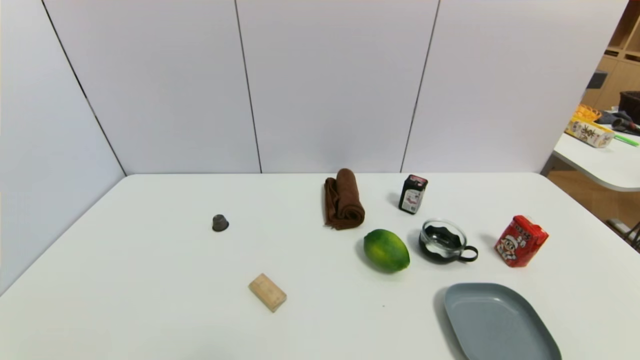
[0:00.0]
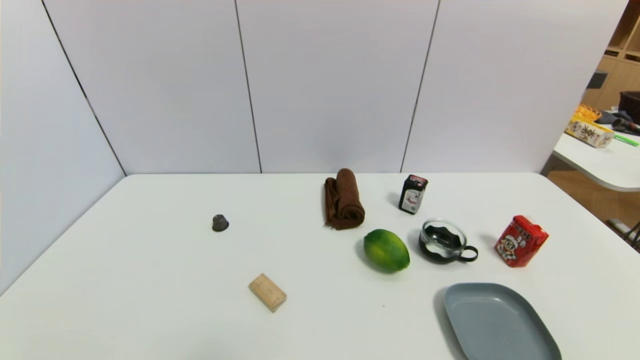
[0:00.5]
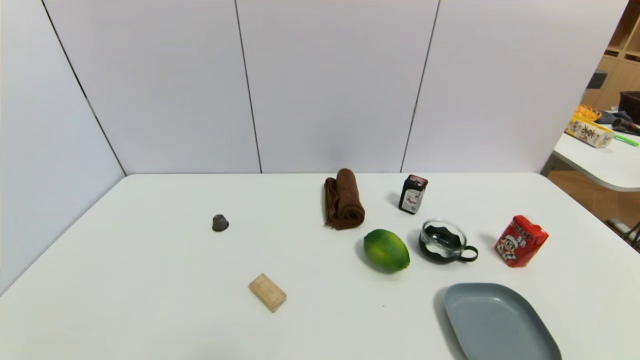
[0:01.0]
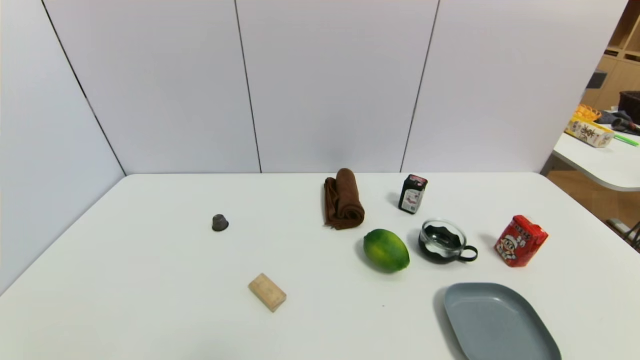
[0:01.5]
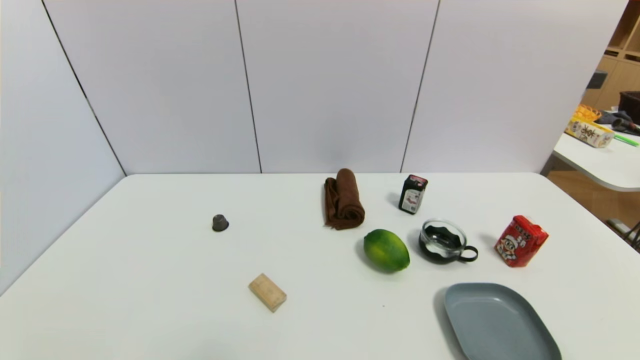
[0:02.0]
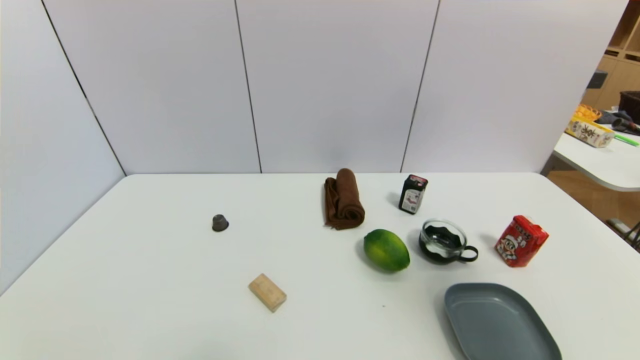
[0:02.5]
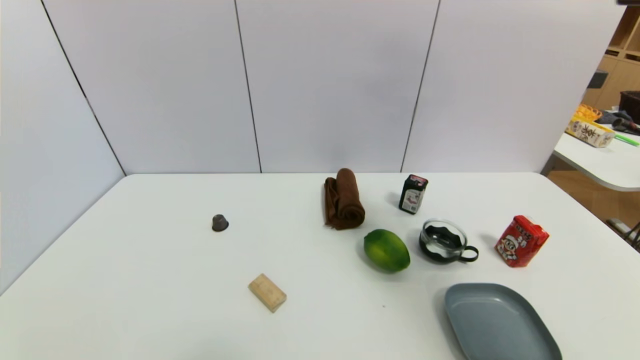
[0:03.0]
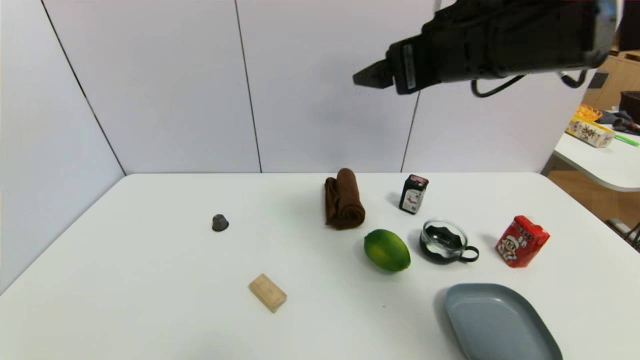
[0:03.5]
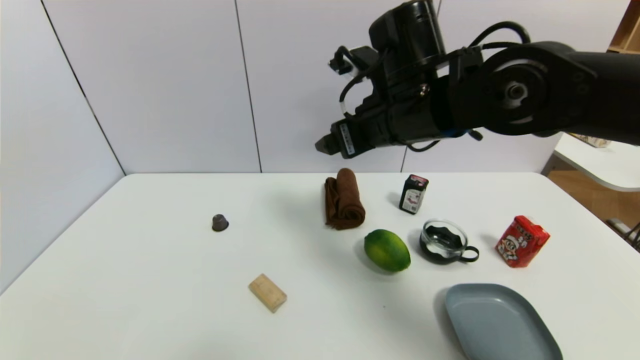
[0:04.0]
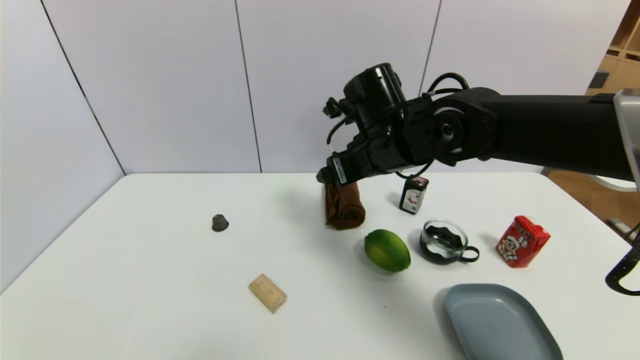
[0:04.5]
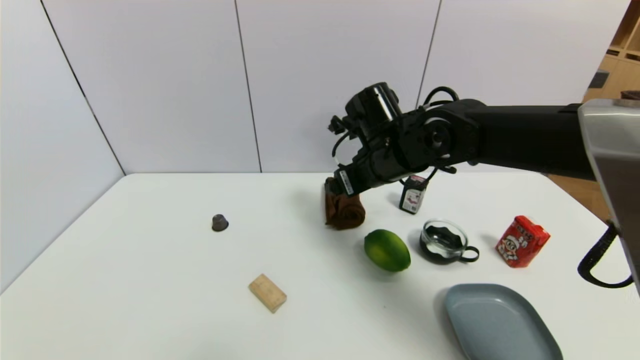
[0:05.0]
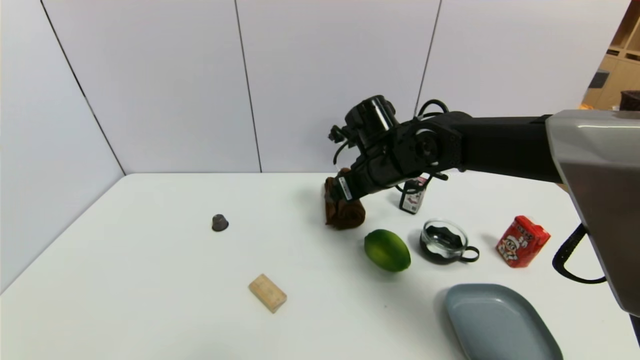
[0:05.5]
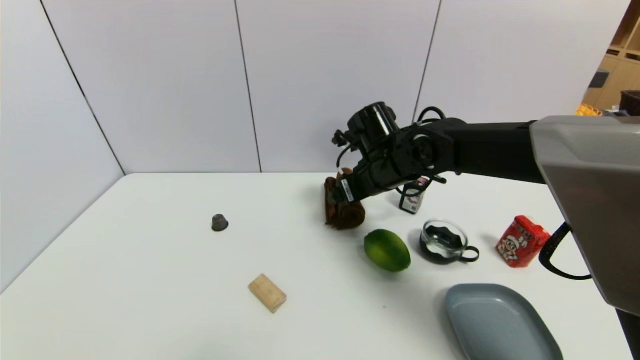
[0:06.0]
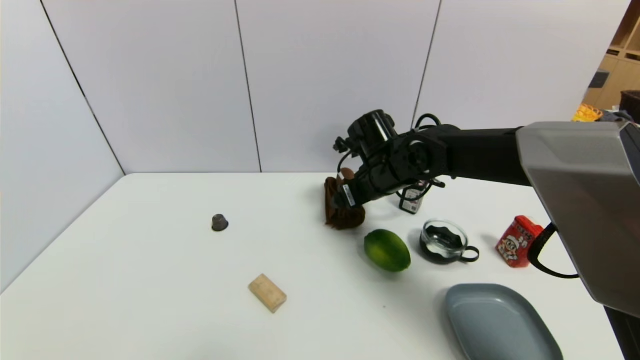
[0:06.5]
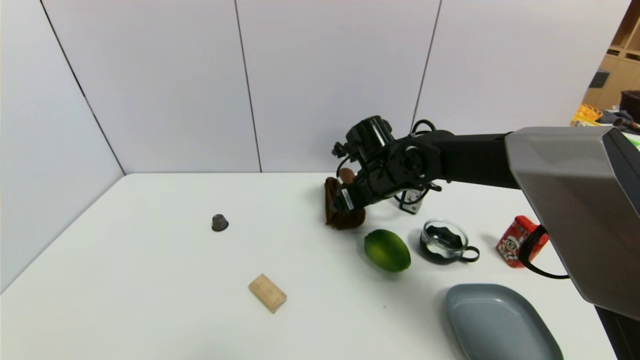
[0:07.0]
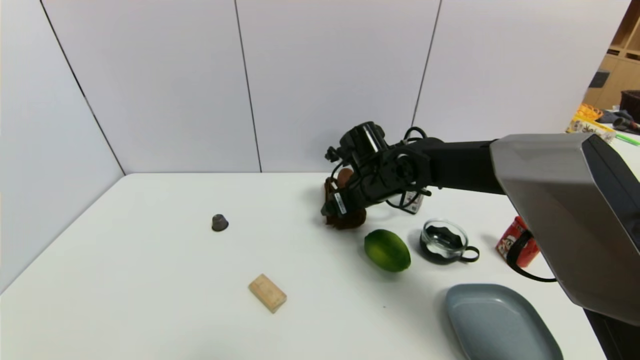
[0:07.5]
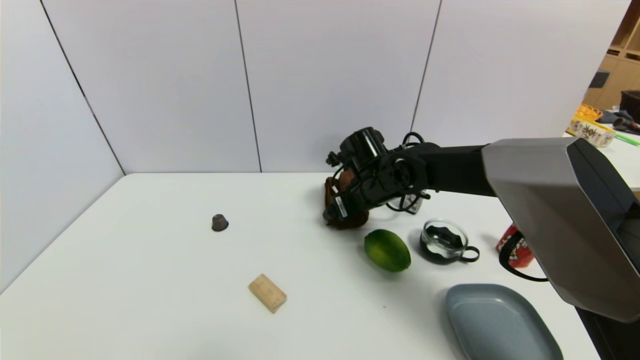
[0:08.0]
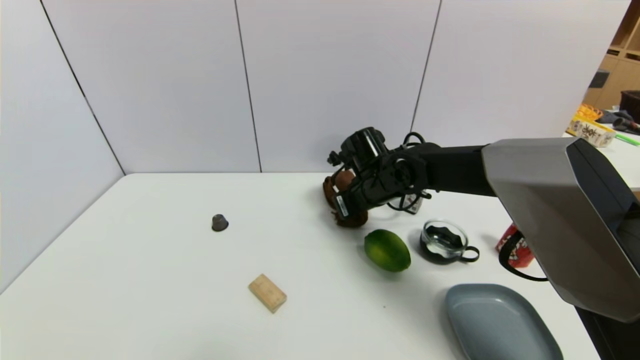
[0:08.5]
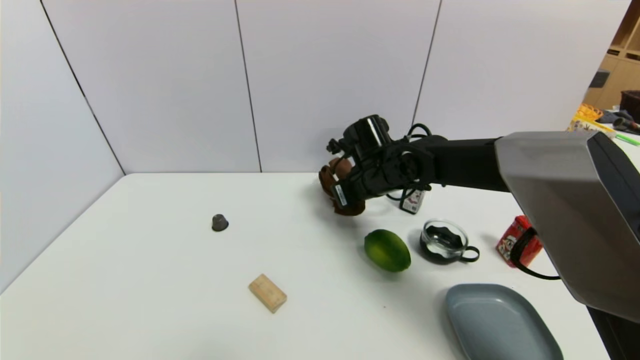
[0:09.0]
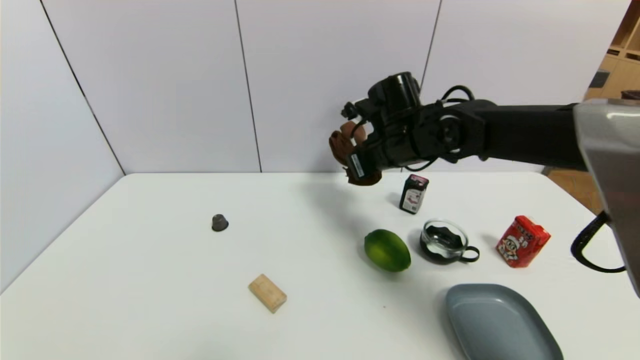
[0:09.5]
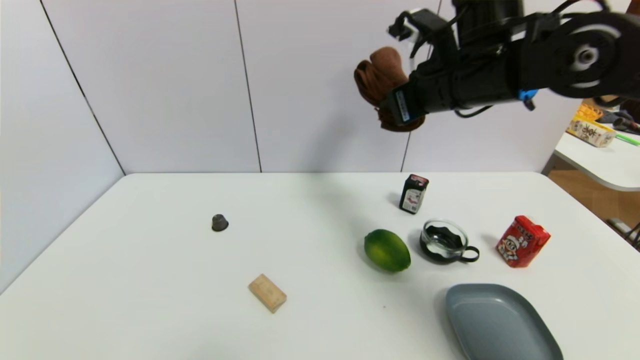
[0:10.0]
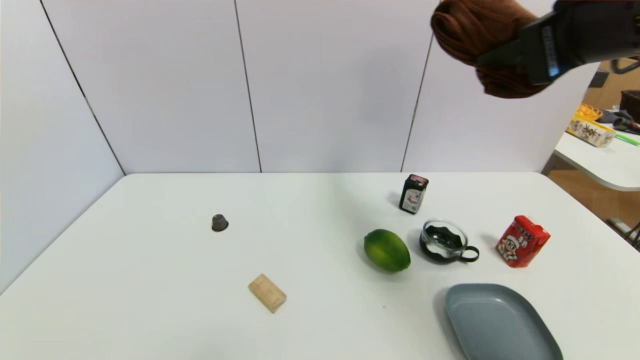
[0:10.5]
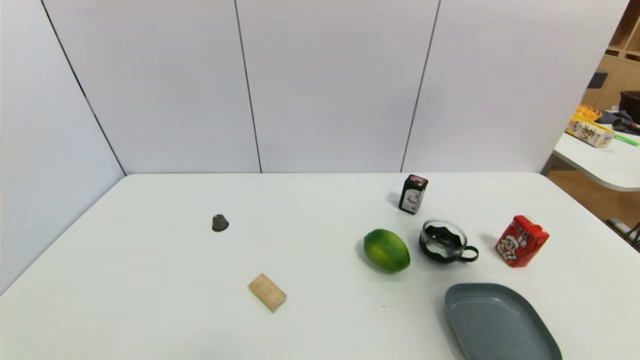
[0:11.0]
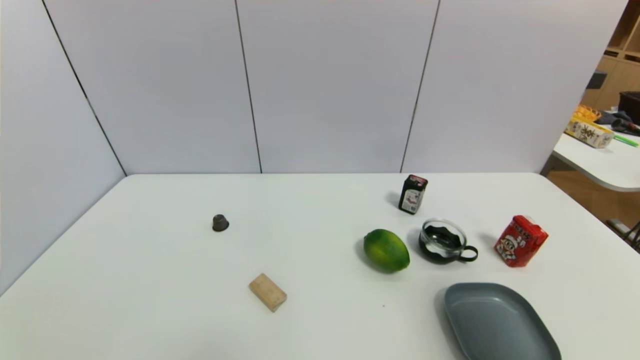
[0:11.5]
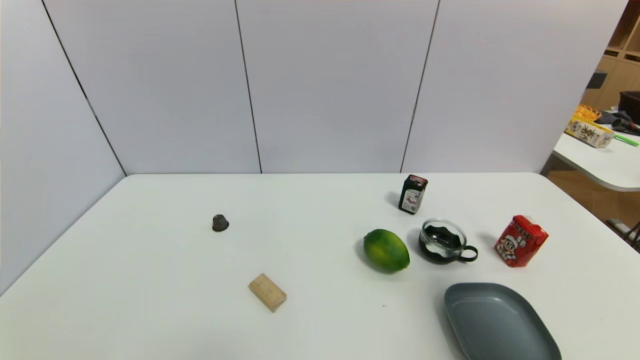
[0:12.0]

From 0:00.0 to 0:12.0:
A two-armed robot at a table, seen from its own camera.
Task of the whole recording: use a gripper to pick the target object and place on the dish.
Step, from 0:00.0 to 0:08.5: Grasp the brown towel with the right gripper.
From 0:02.0 to 0:04.0: The right gripper is displaced forward and to the left by approximately 40 cm.
From 0:04.0 to 0:06.0: The right gripper travels downward and forward by approximately 15 cm.
From 0:06.0 to 0:08.0: The right gripper changes place by about 5 cm.
From 0:08.0 to 0:10.0: The right gripper goes approximately 20 cm upward and to the right, and closes up.
From 0:10.0 to 0:12.0: The right gripper travels backward and to the right by about 35 cm.

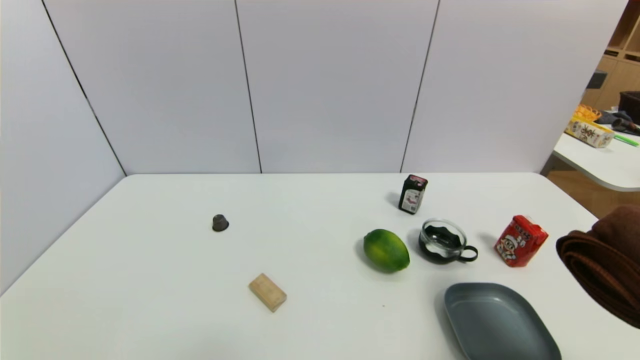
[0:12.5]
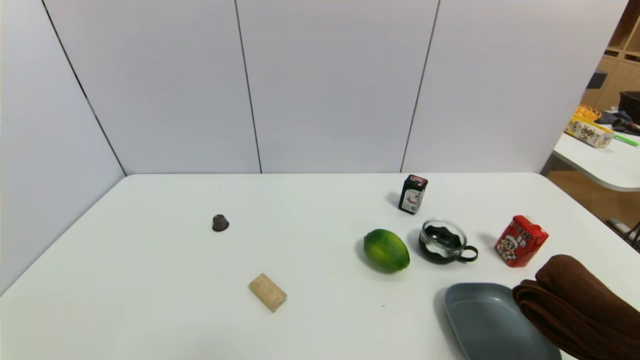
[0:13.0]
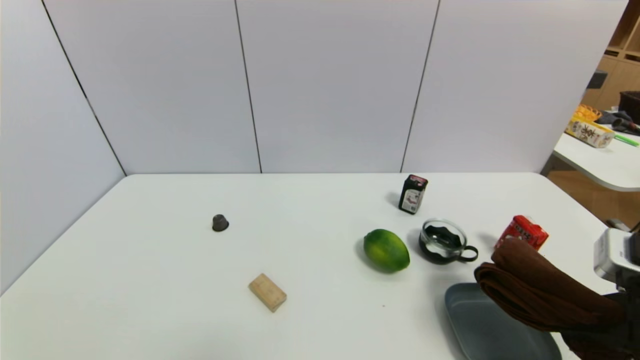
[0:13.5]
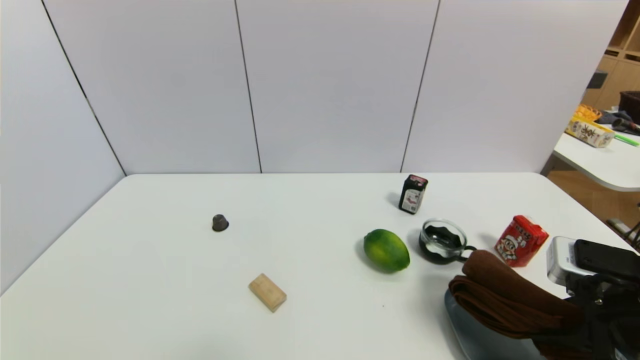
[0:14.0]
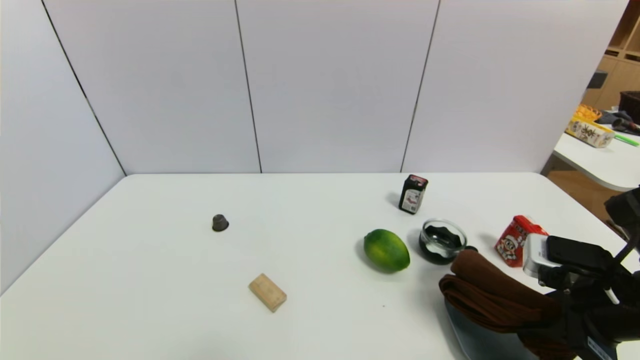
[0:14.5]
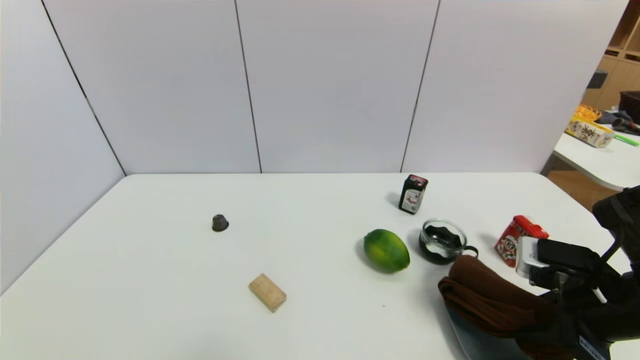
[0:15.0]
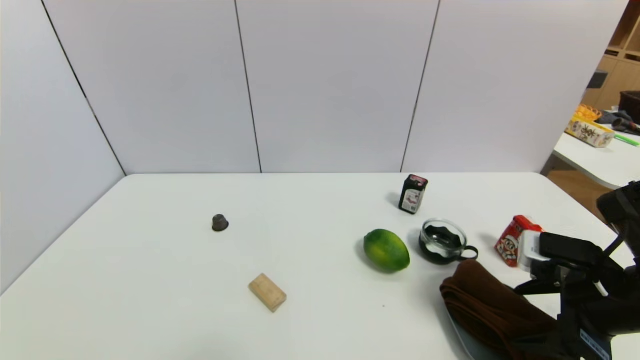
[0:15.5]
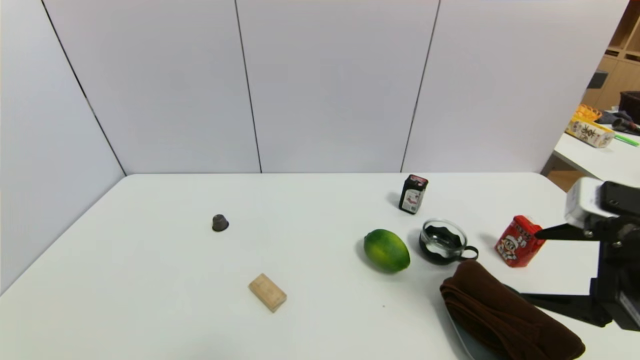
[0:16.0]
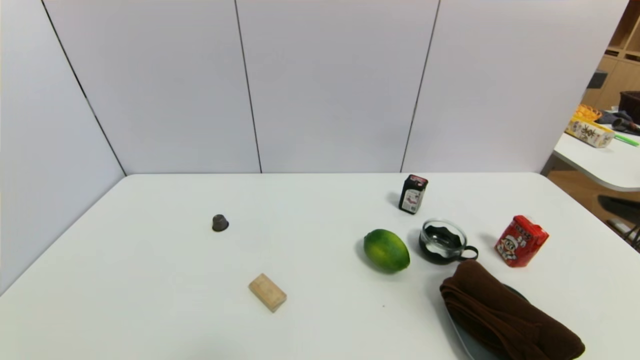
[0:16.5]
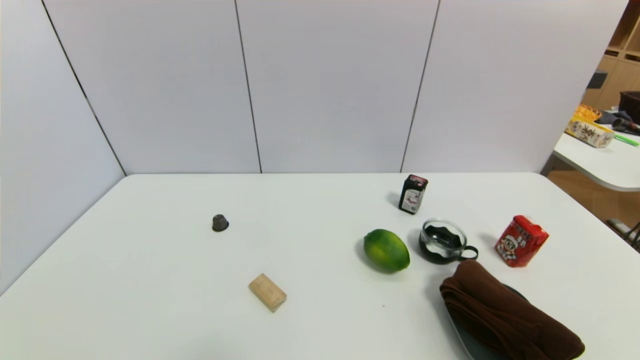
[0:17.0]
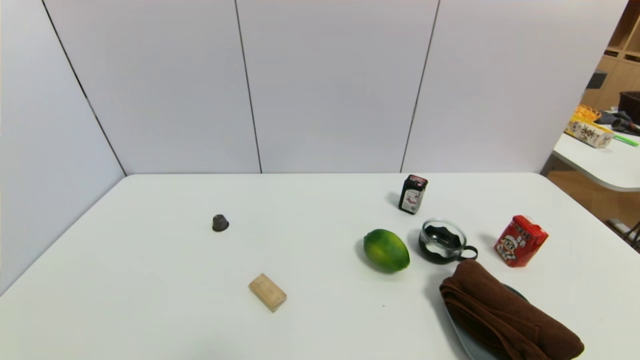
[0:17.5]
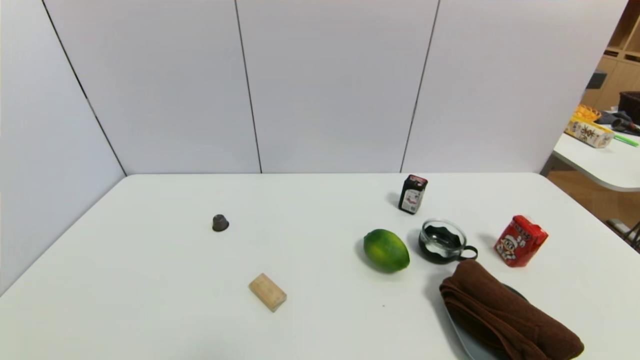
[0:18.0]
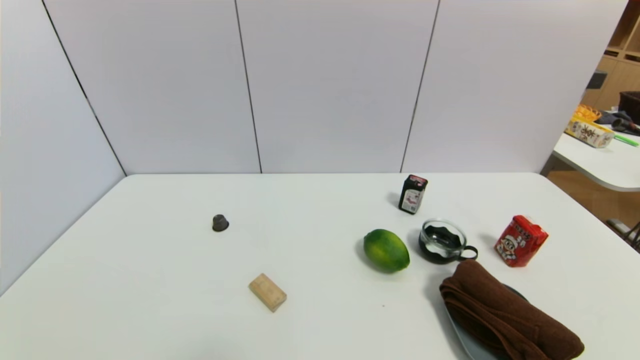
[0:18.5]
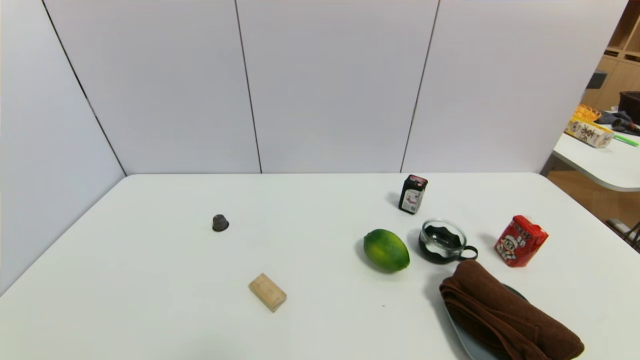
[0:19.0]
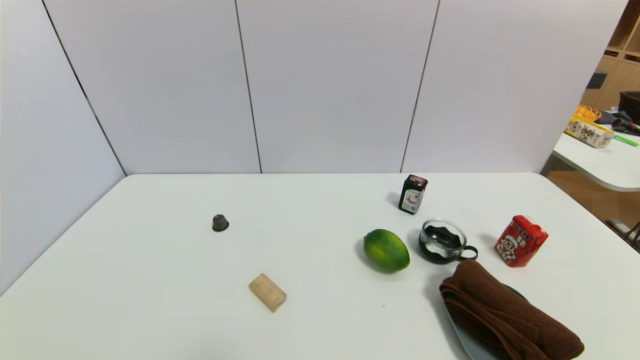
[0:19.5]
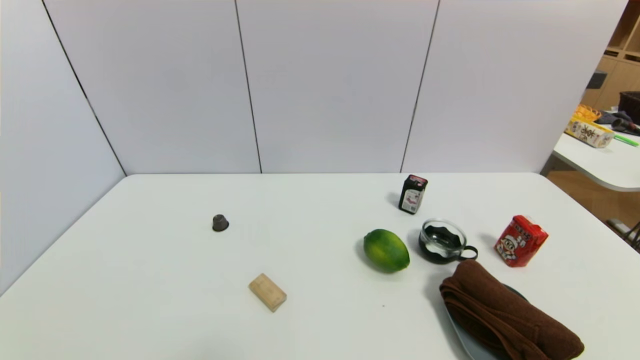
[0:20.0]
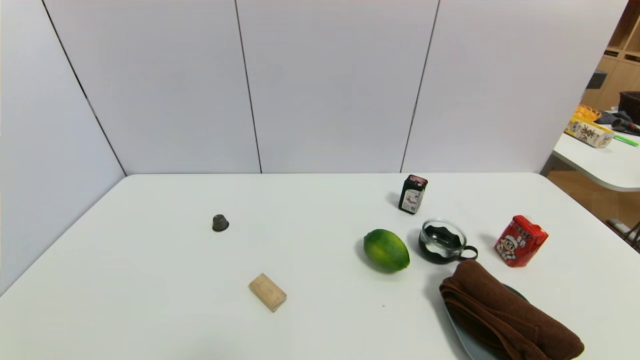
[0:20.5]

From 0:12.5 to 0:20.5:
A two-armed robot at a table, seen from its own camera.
Task of the whole recording: use a gripper to pick the target object and place on the dish.
Step, from 0:12.5 to 0:16.0: Place the brown towel on the dish with the right gripper.
From 0:12.5 to 0:14.5: The right gripper goes roughly 15 cm forward and downward.
From 0:14.5 to 0:16.5: The right gripper goes roughly 15 cm upward and backward, and opens up.
From 0:16.5 to 0:18.5: The right gripper shifts roughly 25 cm downward and backward.
